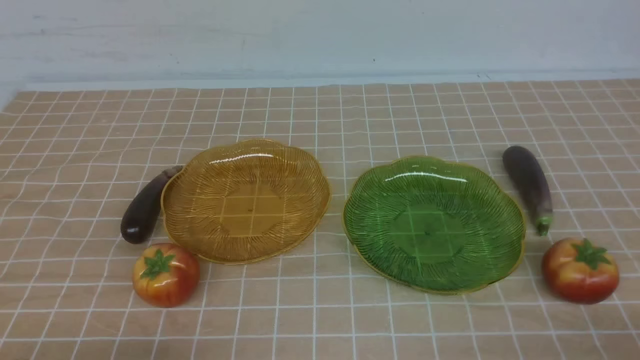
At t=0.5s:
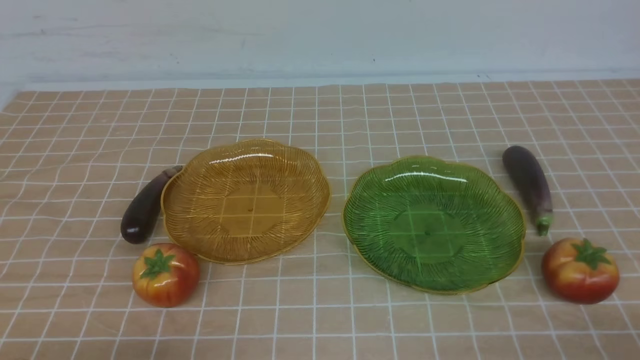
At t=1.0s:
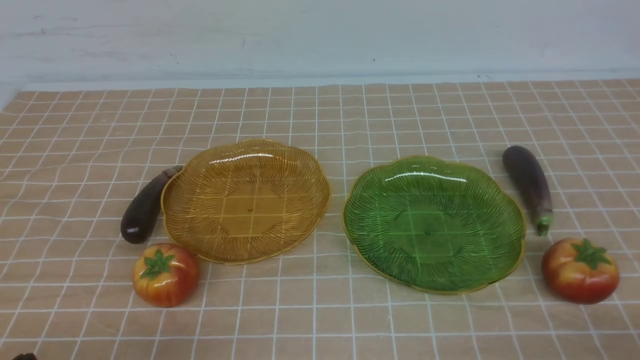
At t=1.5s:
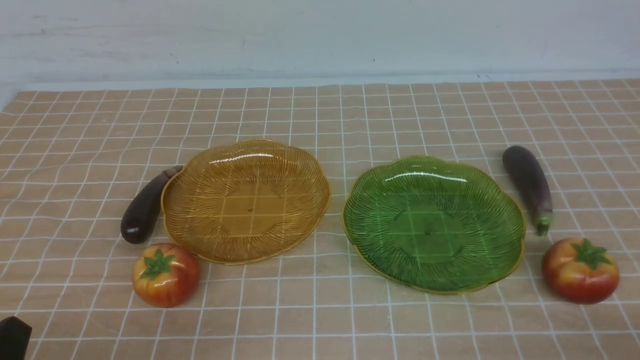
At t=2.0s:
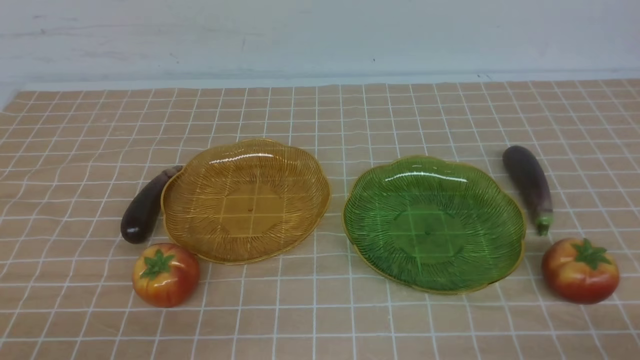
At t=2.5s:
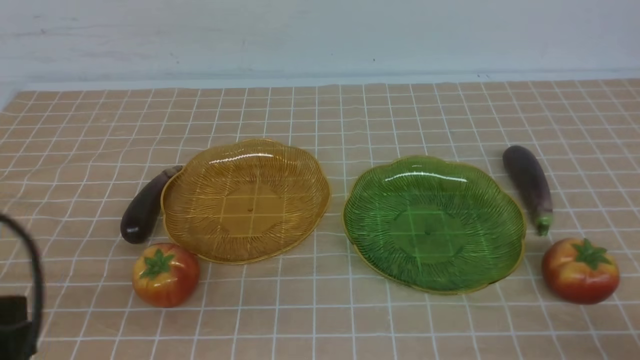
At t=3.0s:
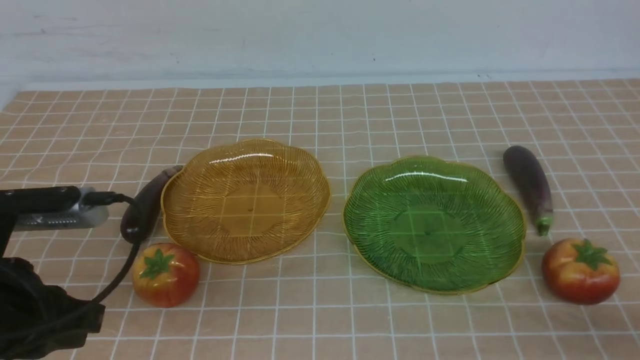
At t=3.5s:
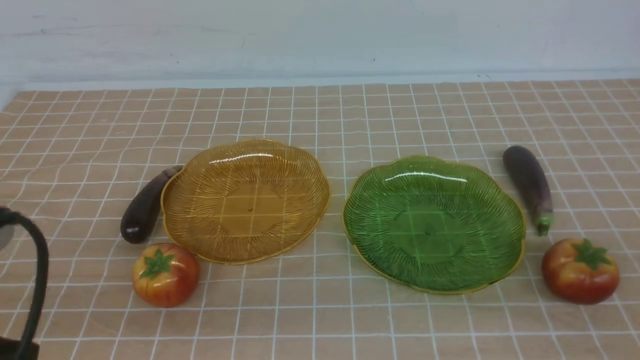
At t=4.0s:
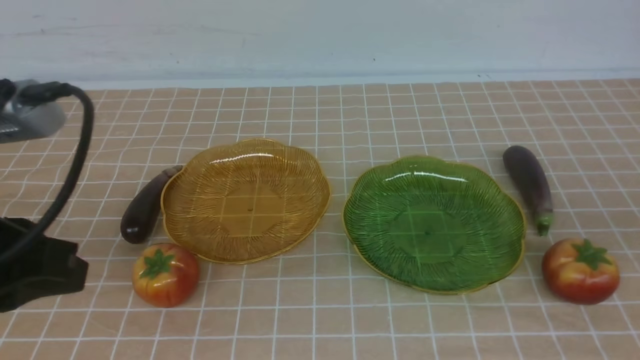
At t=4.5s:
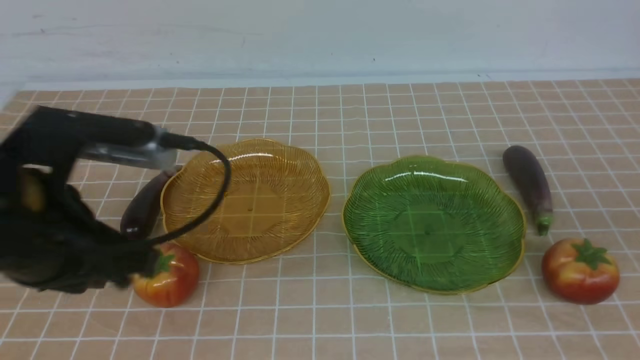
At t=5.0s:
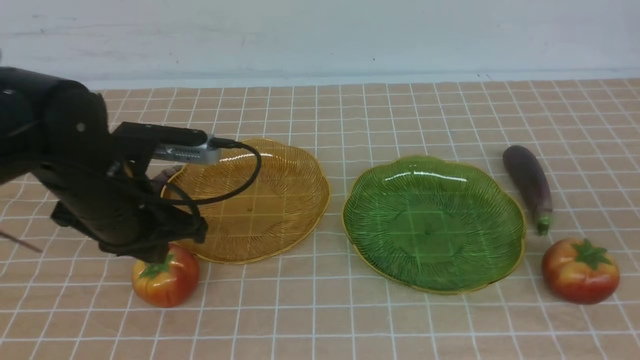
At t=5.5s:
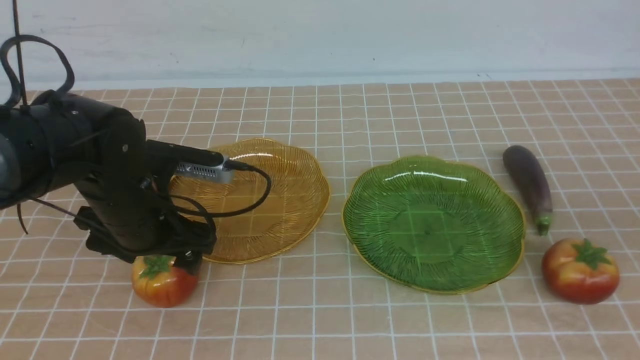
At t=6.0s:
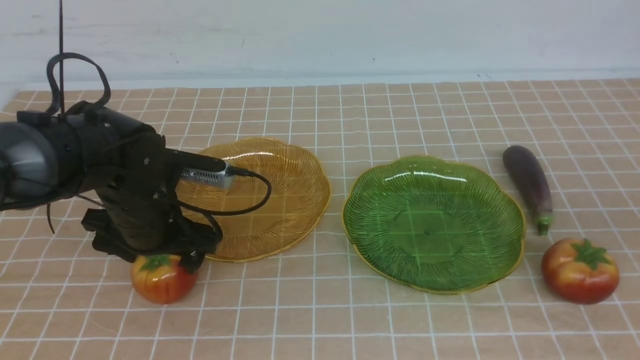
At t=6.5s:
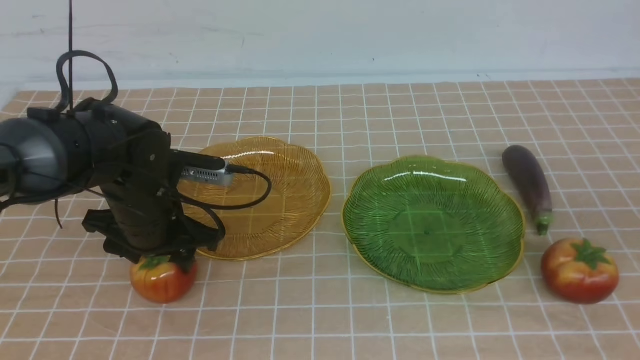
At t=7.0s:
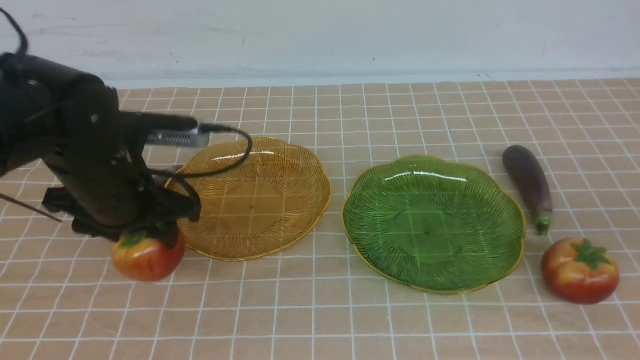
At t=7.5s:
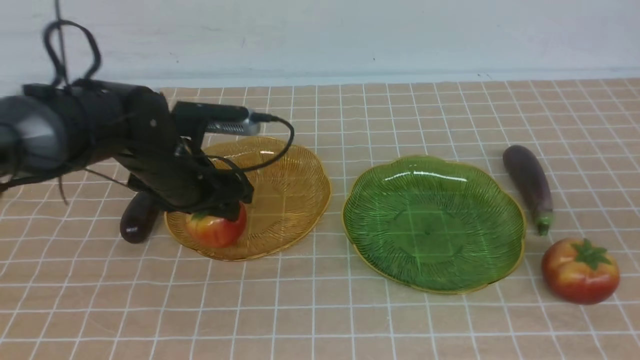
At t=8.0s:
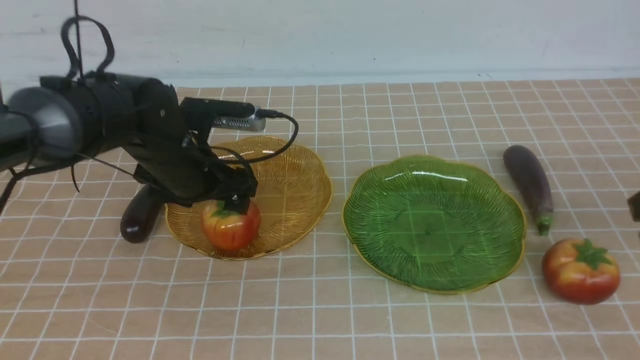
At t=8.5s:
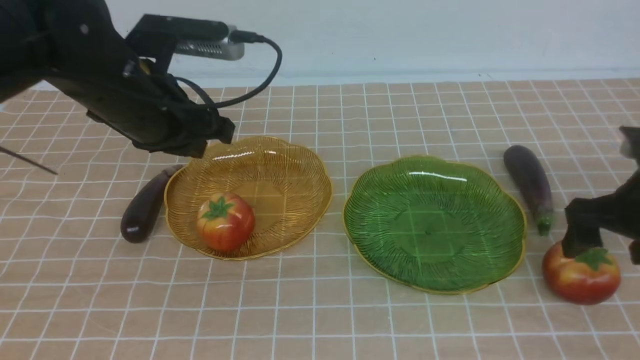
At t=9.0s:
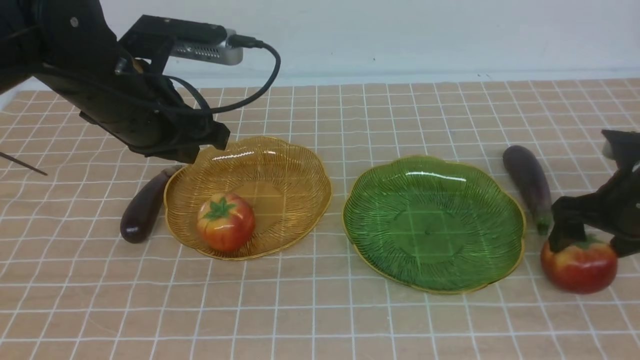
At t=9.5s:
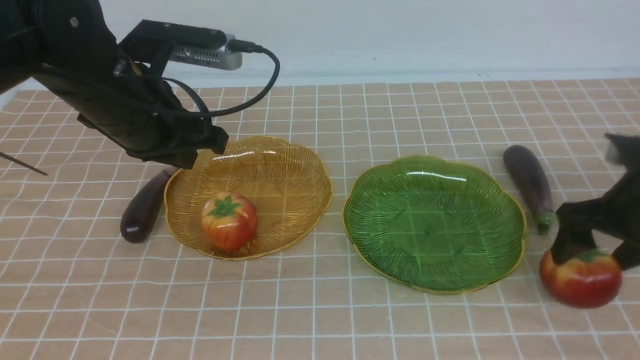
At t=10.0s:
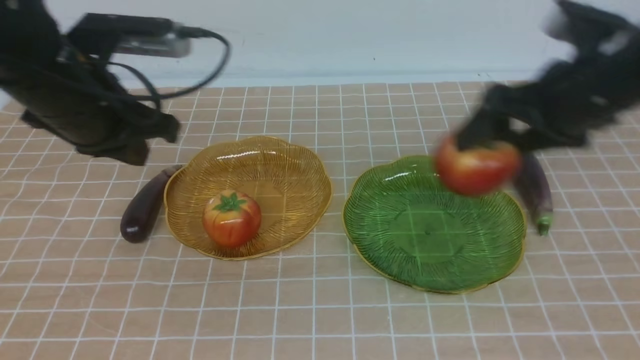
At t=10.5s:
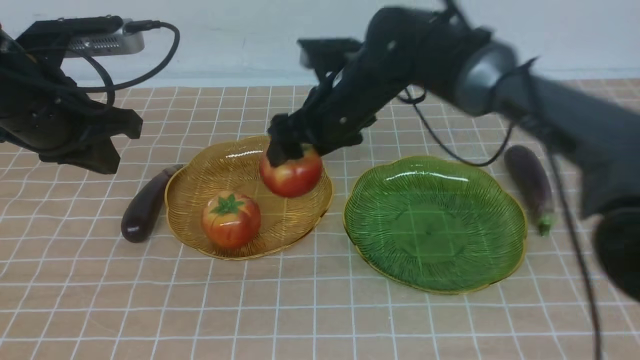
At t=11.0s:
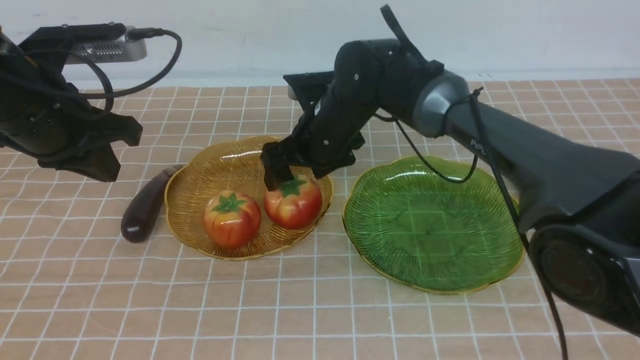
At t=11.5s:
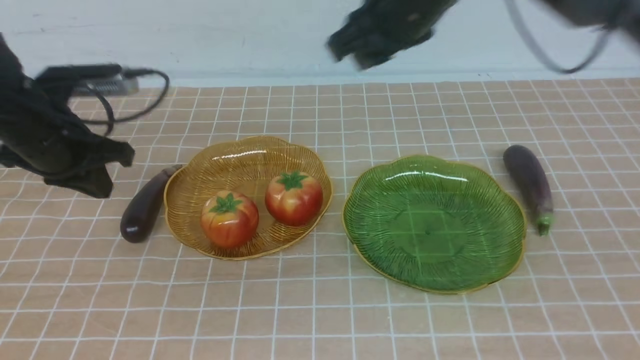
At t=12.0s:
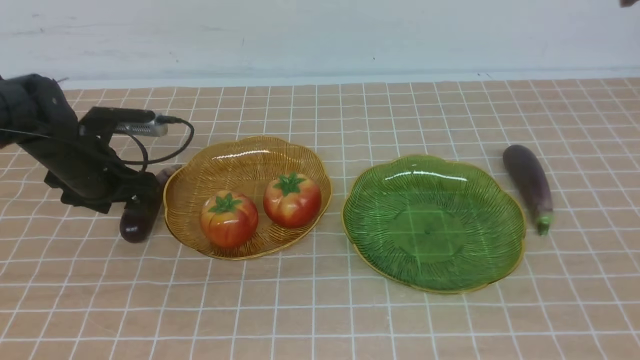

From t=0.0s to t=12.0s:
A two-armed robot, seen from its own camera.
Step, from t=0.0s to t=8.0s: use the left arm to grab a tomato and put it into the left plate.
Step, from t=8.5s to t=11.0s: use the right arm to grab a tomato and put it into the left plate.
From t=2.0s to t=4.0s: The left gripper moves forward, to the right and upward, roughly 20 cm.
From t=4.0s to t=6.0s: The left gripper travels downward and forward by approximately 20 cm, and opens up.
From t=6.0s to t=8.0s: The left gripper travels upward by some 15 cm, and closes its fingers. The right gripper heads downward and forward, covering roughly 25 cm, and opens.
From t=8.0s to t=10.0s: The right gripper heads to the left, covering about 30 cm; the left gripper goes approximately 10 cm to the left.
From t=10.0s to t=12.0s: The right gripper travels to the right and upward by about 35 cm, and closes its fingers, while the left gripper is displaced to the right and forward by some 10 cm, reaches approximately 15 cm downward, then returns, and opens up.

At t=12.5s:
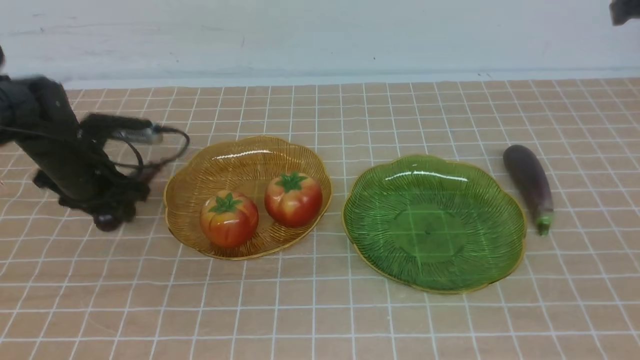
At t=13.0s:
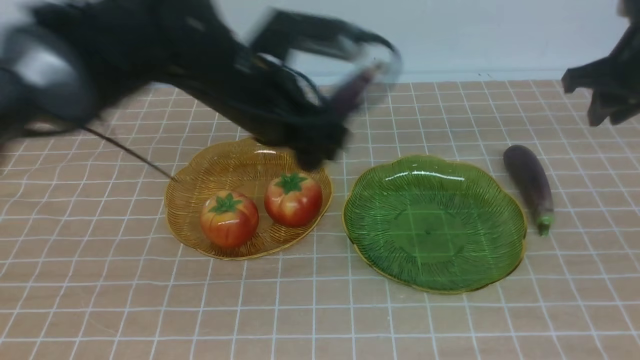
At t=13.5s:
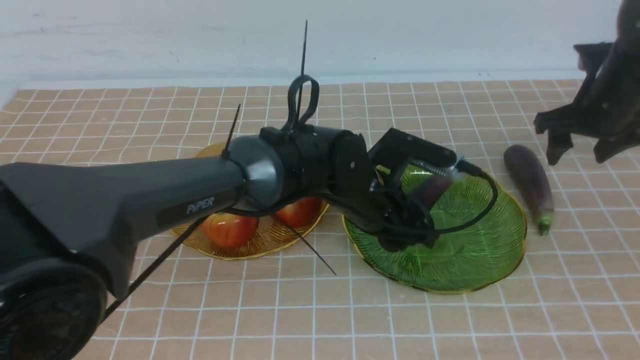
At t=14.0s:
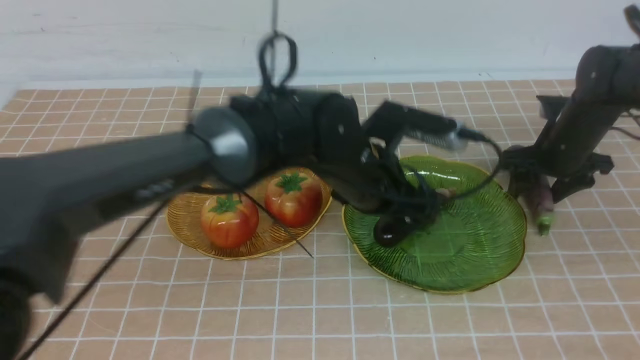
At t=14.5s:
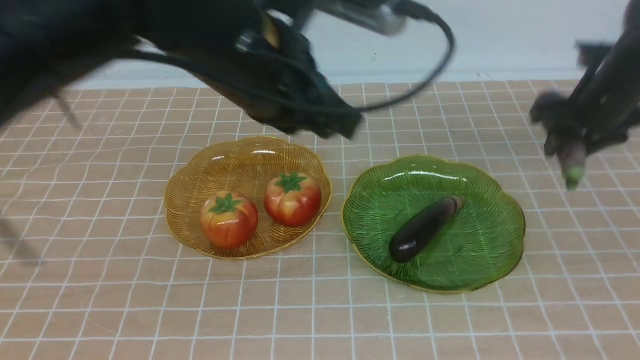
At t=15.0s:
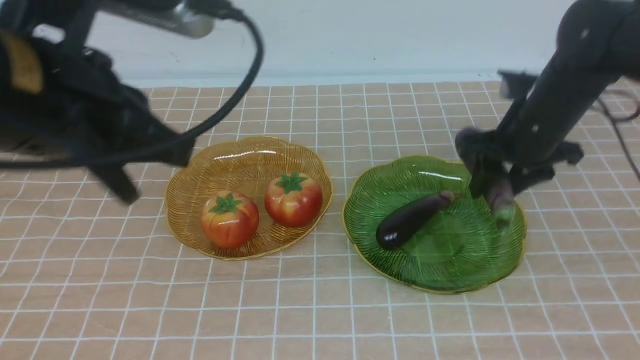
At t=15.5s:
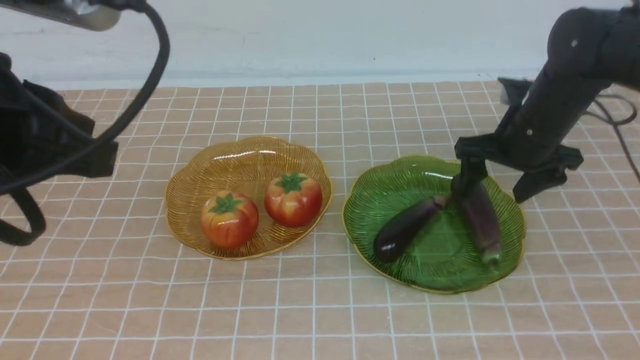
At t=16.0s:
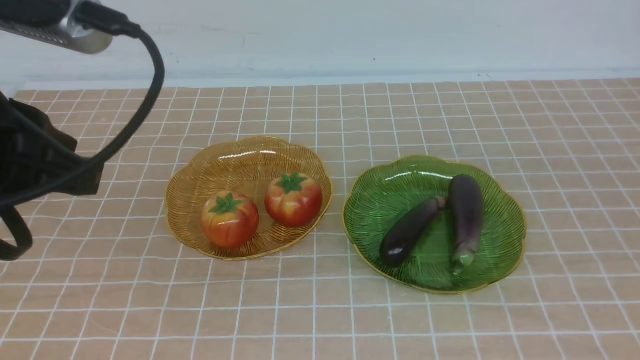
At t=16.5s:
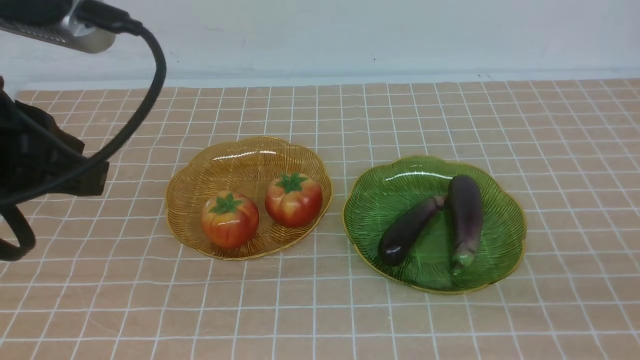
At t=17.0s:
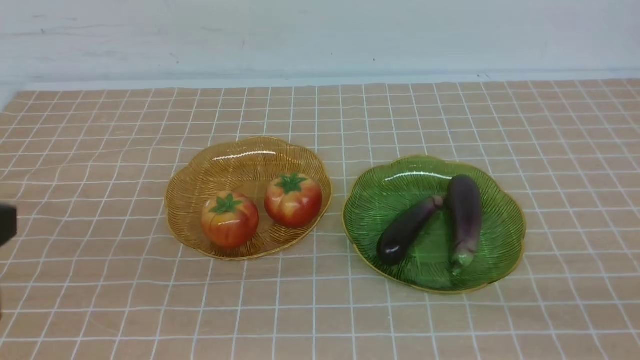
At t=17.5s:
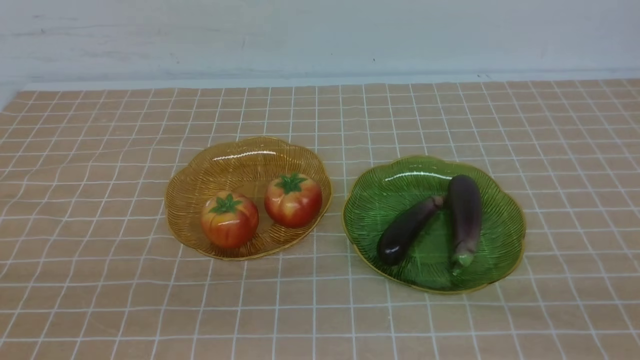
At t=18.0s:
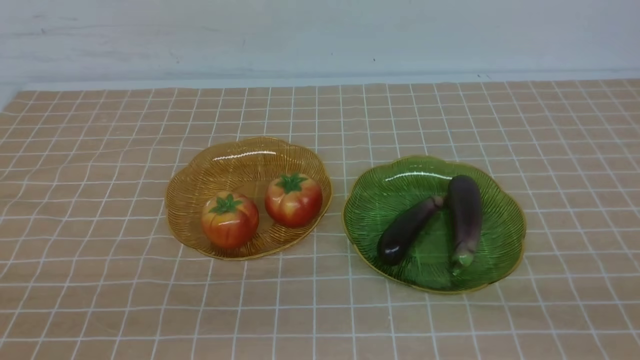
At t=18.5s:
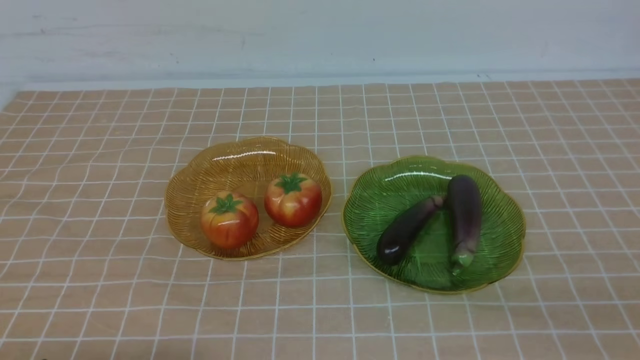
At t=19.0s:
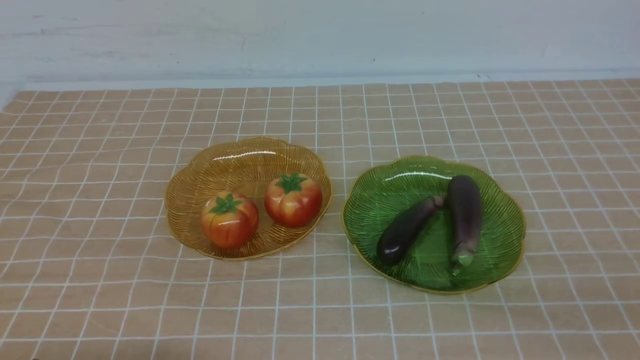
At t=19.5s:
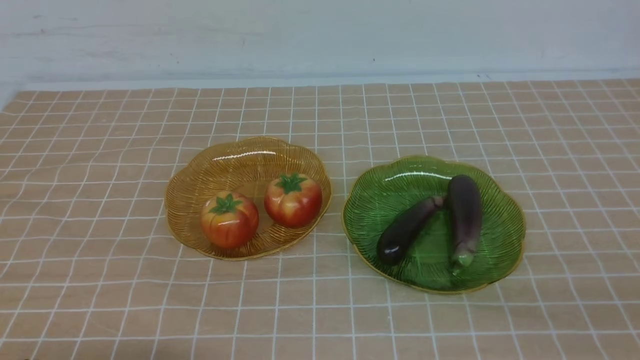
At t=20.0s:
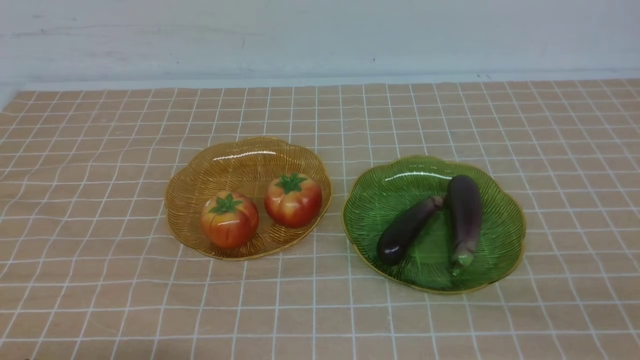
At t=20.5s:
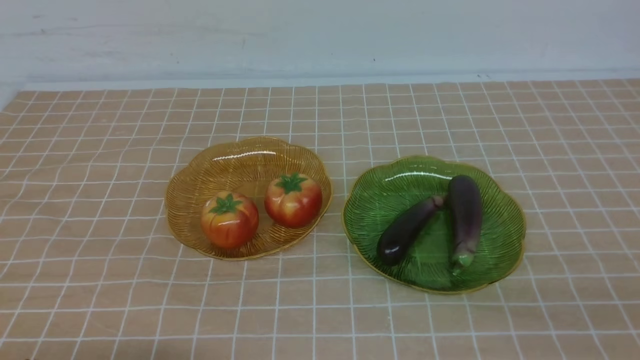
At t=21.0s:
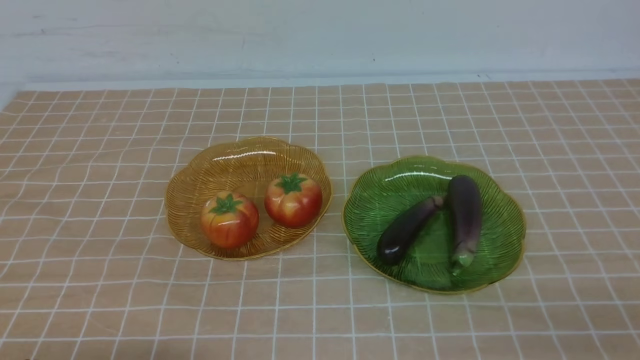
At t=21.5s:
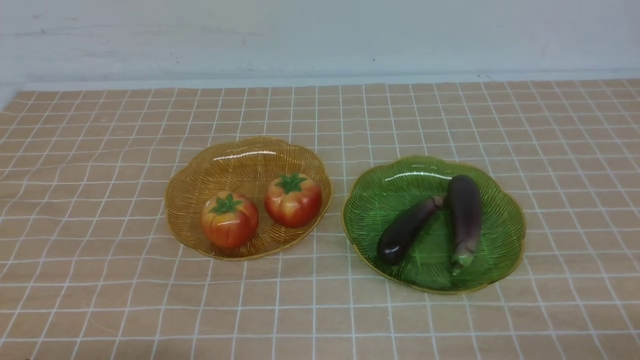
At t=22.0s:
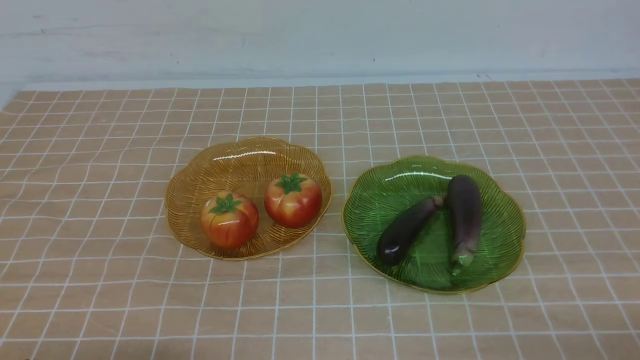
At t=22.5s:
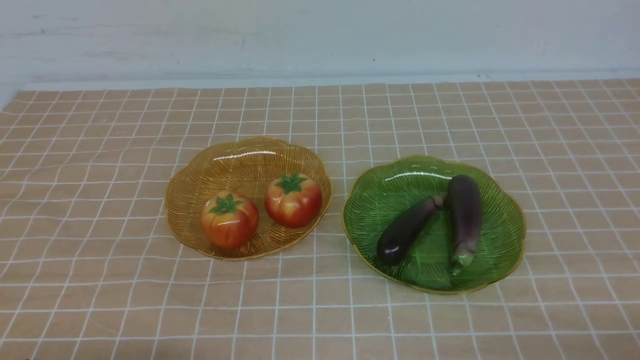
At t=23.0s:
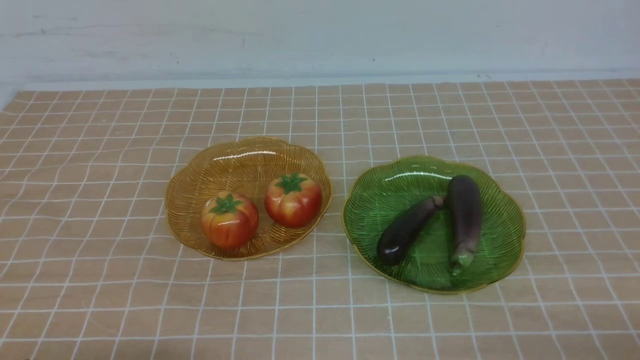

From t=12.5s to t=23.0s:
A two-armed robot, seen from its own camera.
Step, from t=12.5s to t=14.0s: use the left arm to grab an eggplant and put it into the right plate.
Step, from t=14.5s to t=15.5s: use the right arm to grab an eggplant and put it into the right plate.
From t=12.5s to t=14.5s: The right gripper goes up and down, some 10 cm each way, reversing 2 times. Meanwhile the left gripper shifts about 30 cm to the left, upward and backward, and closes.
From t=14.5s to t=16.5s: The right gripper goes approximately 35 cm backward, and closes. The left gripper goes some 10 cm backward and to the left.
From t=16.5s to t=19.0s: The left gripper travels downward by some 20 cm.
